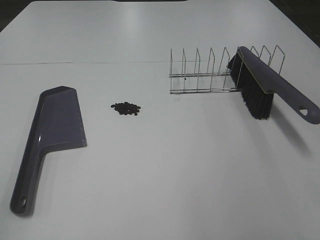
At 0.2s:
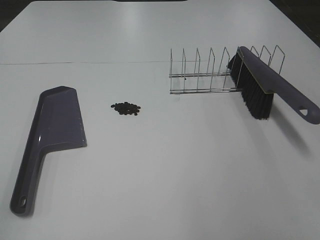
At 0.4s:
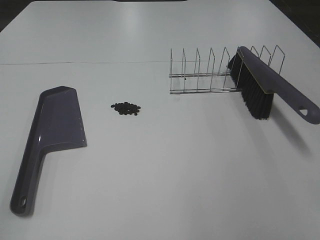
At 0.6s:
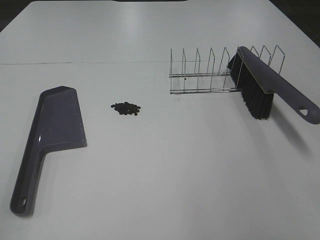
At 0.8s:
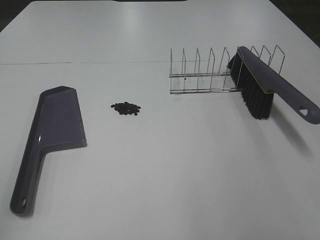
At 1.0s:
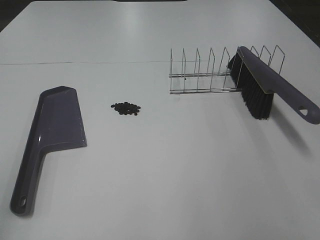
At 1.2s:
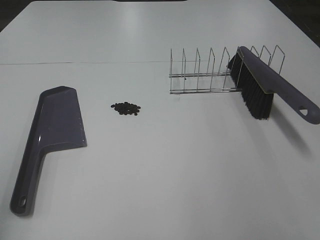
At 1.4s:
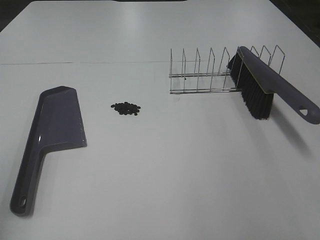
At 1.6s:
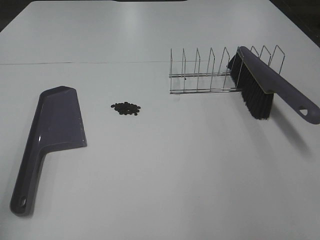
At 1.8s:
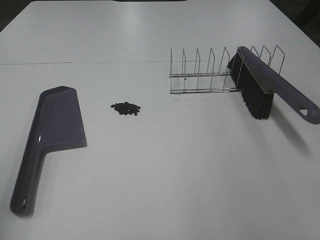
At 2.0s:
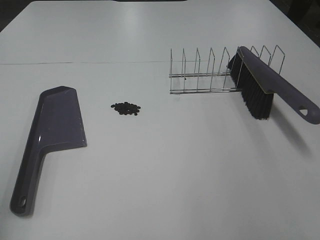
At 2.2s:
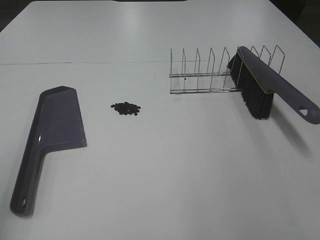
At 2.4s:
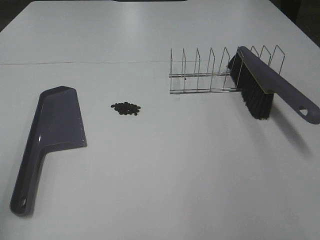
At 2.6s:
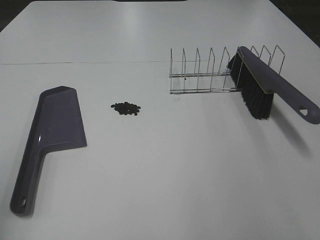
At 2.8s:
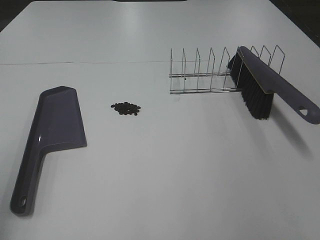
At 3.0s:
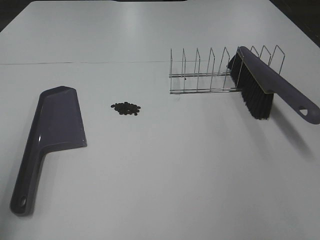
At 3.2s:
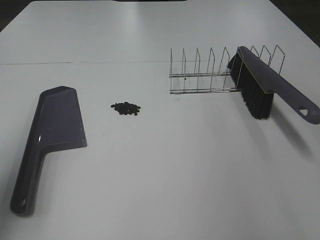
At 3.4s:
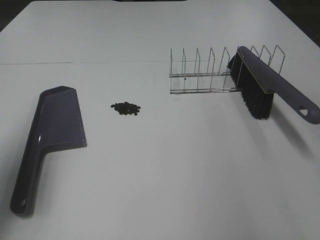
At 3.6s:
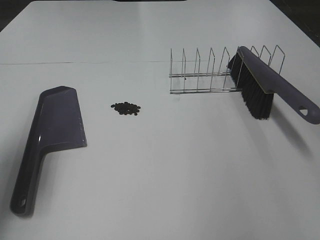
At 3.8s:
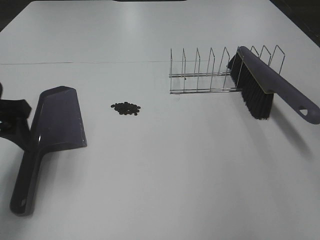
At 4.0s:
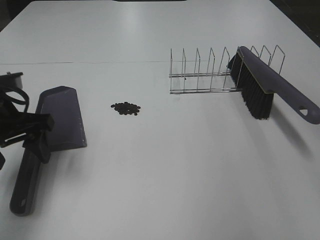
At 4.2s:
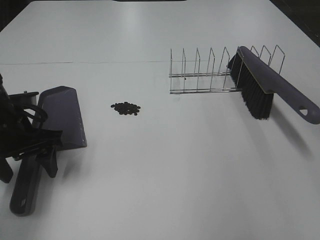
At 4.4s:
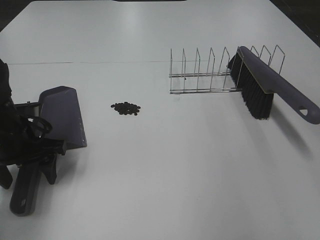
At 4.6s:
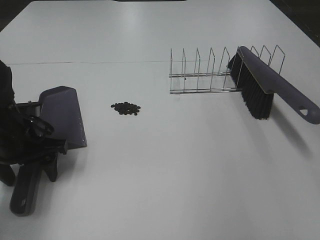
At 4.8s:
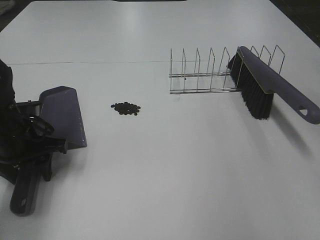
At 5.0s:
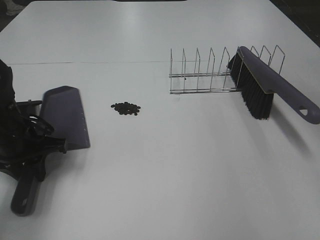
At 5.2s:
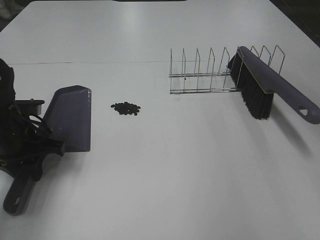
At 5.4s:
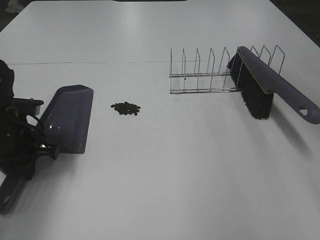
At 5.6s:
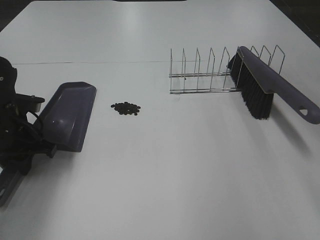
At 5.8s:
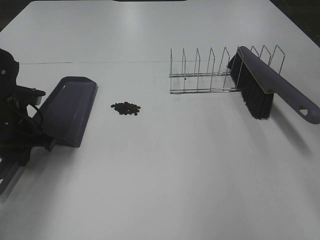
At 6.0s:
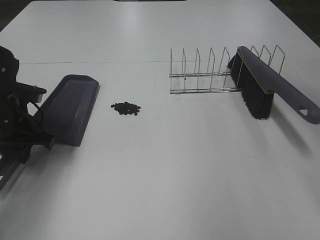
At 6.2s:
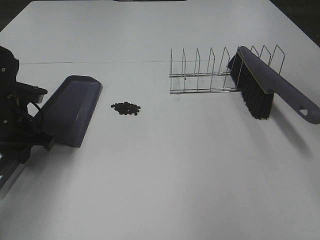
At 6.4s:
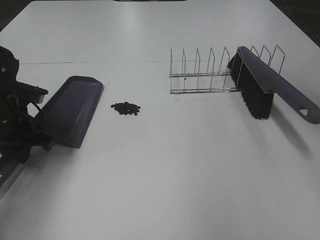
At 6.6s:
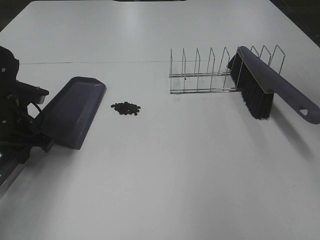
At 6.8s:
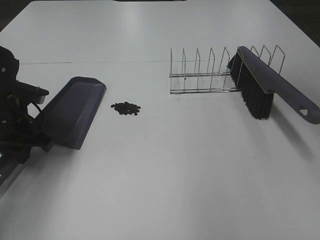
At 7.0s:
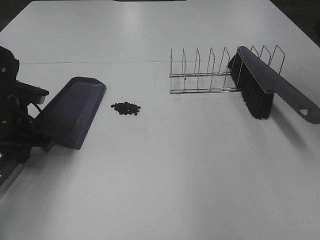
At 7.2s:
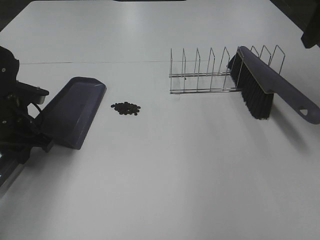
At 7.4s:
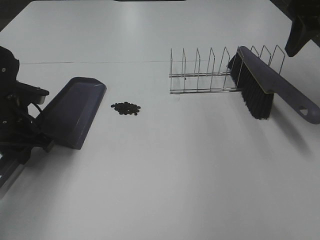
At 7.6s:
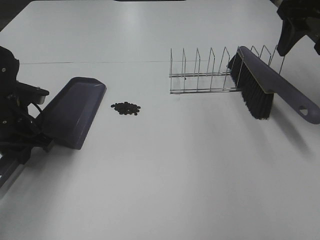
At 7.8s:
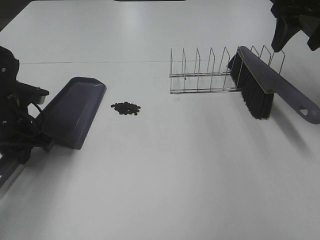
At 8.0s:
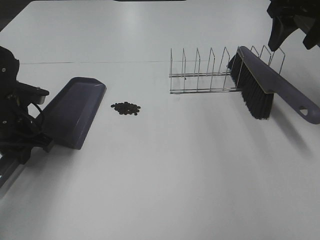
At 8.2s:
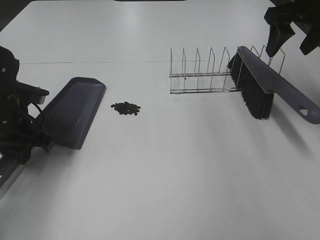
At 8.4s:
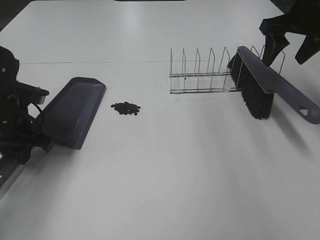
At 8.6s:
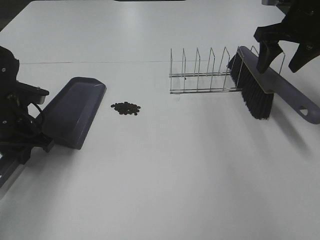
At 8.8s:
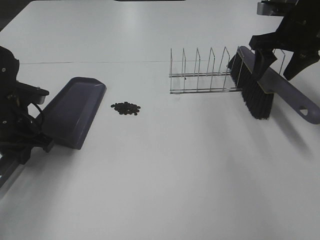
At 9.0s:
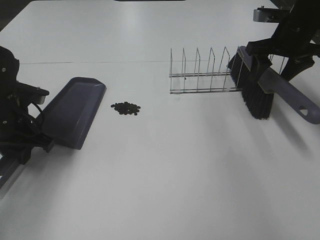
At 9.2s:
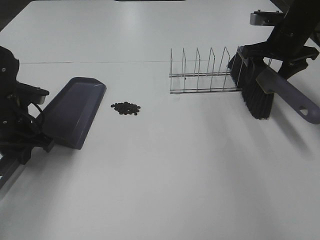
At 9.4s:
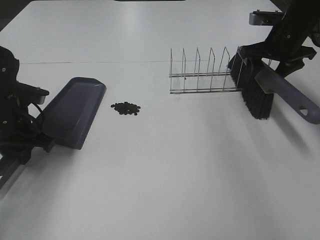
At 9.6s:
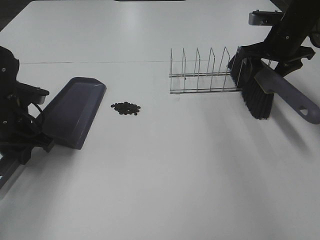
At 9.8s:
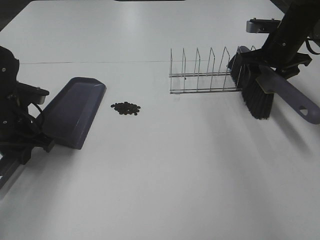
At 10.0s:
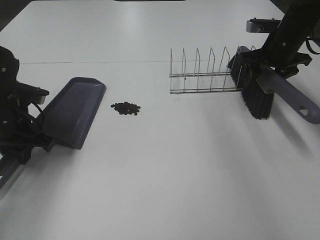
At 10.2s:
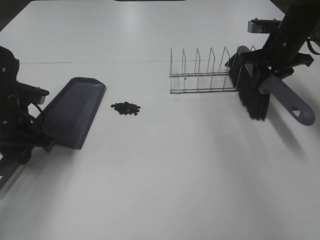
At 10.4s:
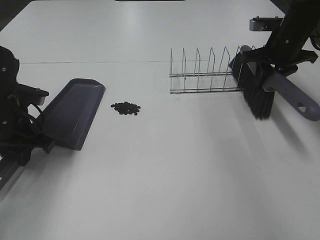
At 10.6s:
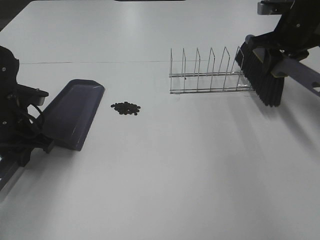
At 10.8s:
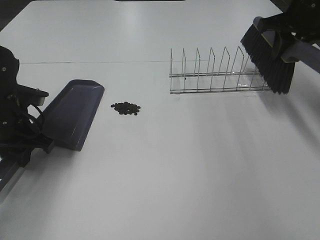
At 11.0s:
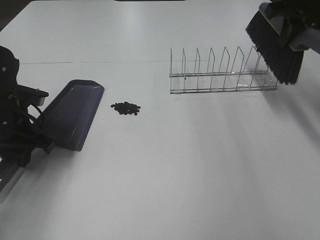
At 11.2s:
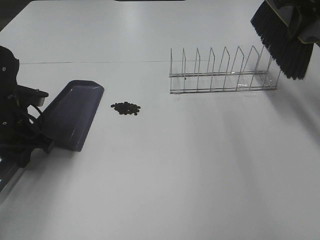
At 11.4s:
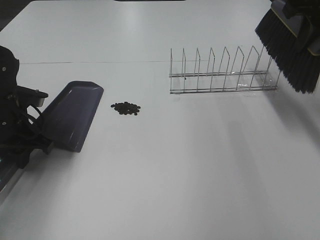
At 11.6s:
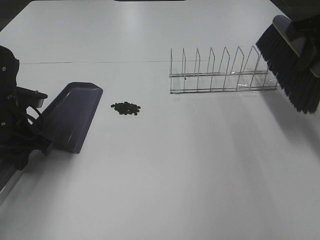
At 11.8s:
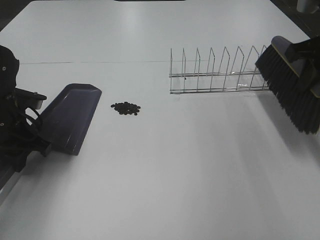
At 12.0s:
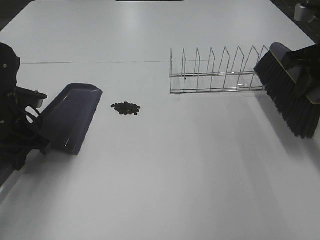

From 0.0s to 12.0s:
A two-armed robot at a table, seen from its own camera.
Task of the whole recording: Sweep Coffee Bean.
Step, from 0.0s to 5.0s: Left hand: grab the dustpan.
Step, from 5.4s to 10.2s: Right hand:grab the broom.
From 3.0s to 4.4s: The left gripper shifts approximately 25 cm downward, forward and to the right.
From 4.4s to 6.0s: The left gripper closes up.
From 6.0s to 7.6s: The right gripper shifts about 20 cm forward.
From 7.6s to 9.0s: The right gripper goes roughly 10 cm downward and forward.
From 9.0s to 10.4s: The right gripper closes up.
From 10.4s to 12.0s: The right gripper moves backward and upward, about 15 cm.

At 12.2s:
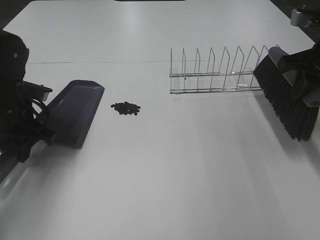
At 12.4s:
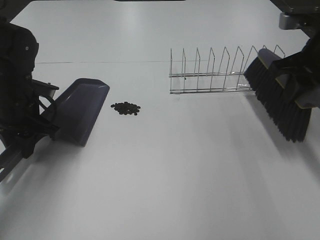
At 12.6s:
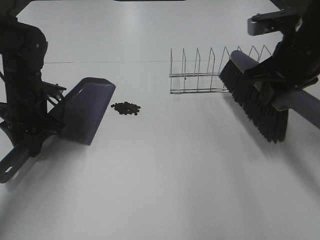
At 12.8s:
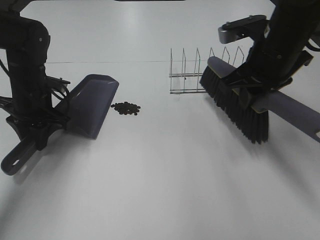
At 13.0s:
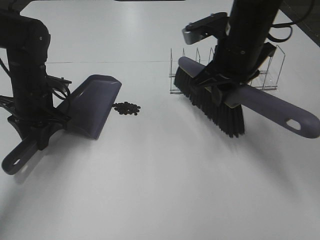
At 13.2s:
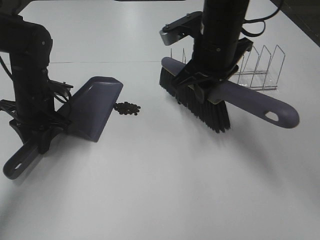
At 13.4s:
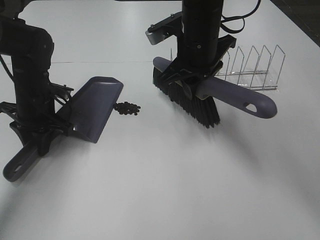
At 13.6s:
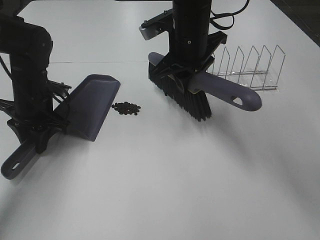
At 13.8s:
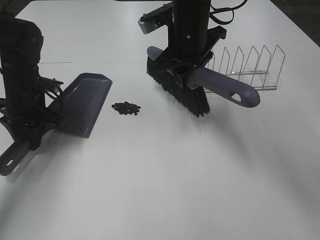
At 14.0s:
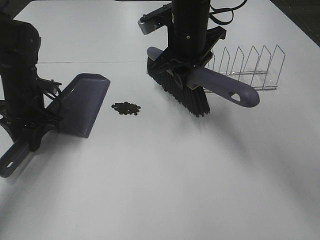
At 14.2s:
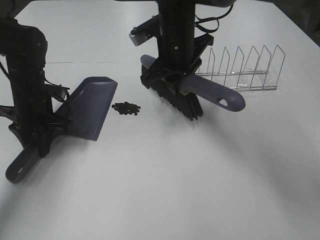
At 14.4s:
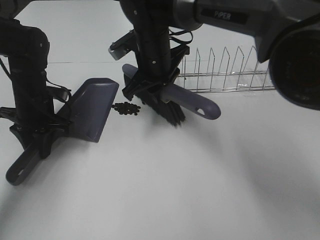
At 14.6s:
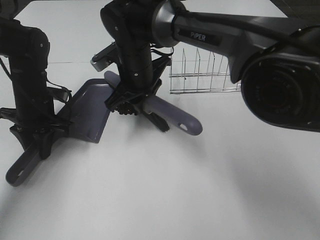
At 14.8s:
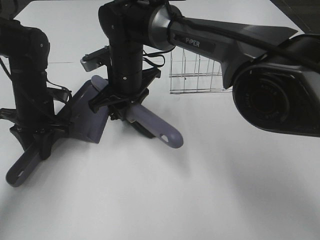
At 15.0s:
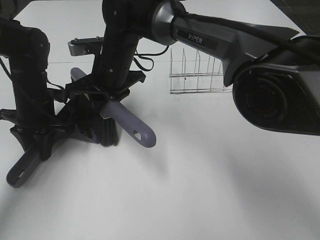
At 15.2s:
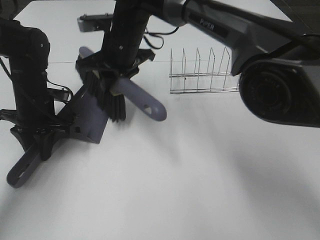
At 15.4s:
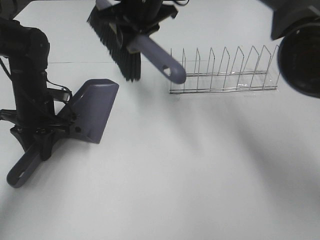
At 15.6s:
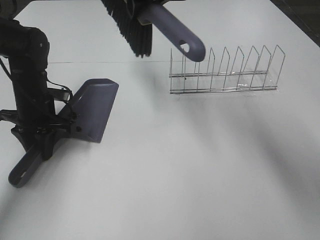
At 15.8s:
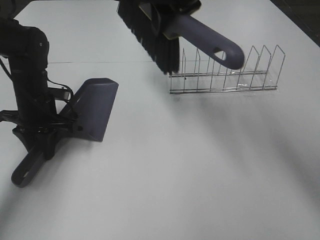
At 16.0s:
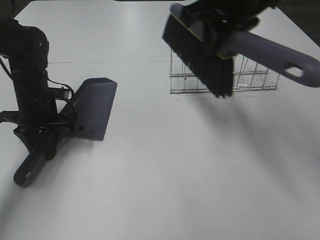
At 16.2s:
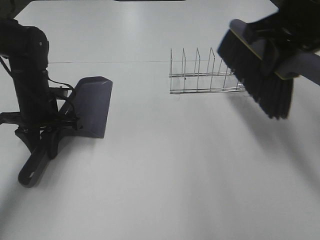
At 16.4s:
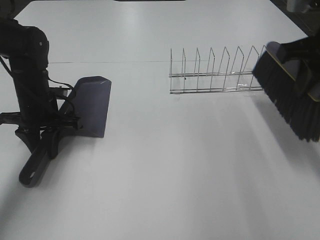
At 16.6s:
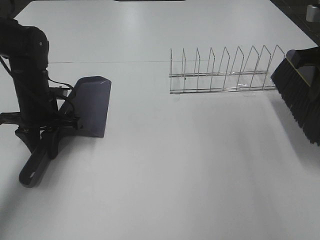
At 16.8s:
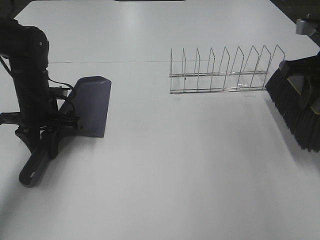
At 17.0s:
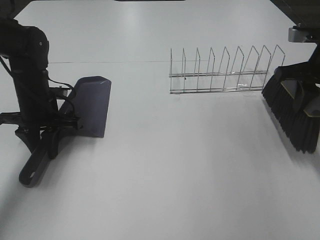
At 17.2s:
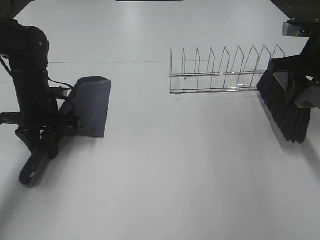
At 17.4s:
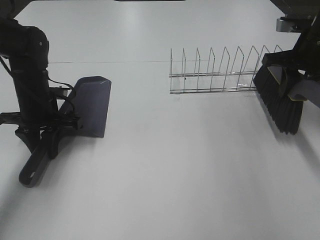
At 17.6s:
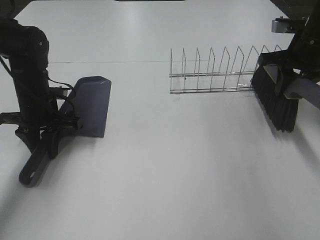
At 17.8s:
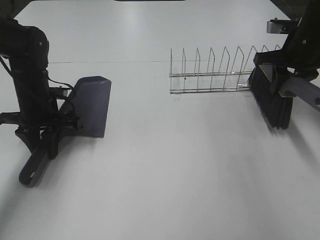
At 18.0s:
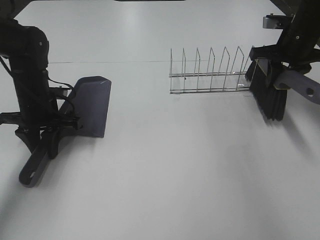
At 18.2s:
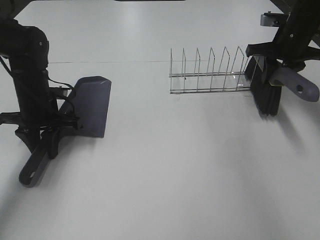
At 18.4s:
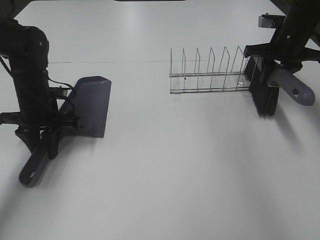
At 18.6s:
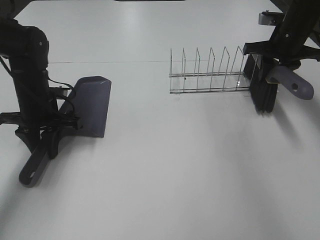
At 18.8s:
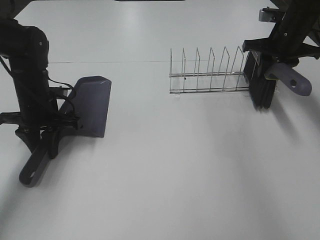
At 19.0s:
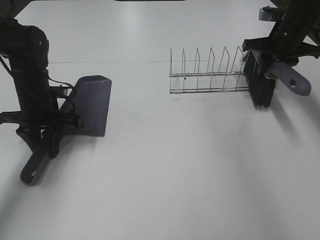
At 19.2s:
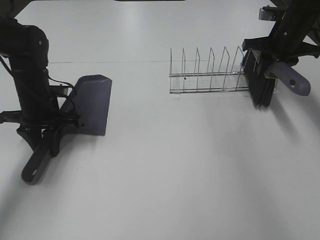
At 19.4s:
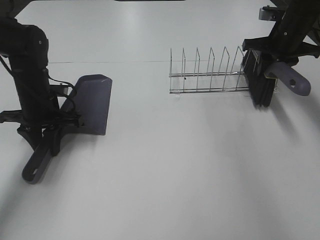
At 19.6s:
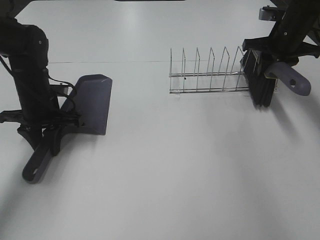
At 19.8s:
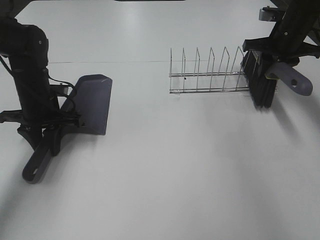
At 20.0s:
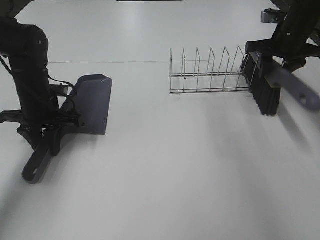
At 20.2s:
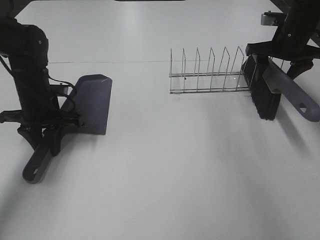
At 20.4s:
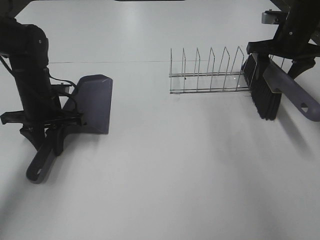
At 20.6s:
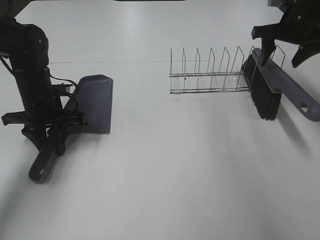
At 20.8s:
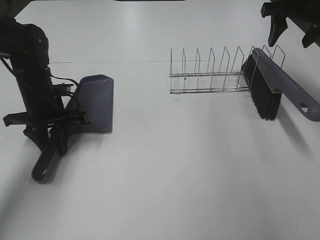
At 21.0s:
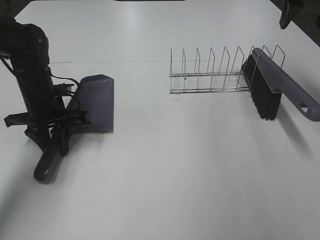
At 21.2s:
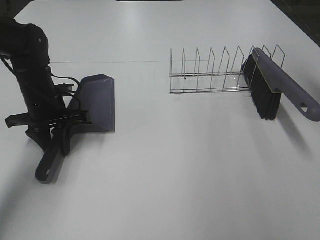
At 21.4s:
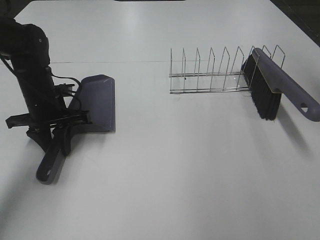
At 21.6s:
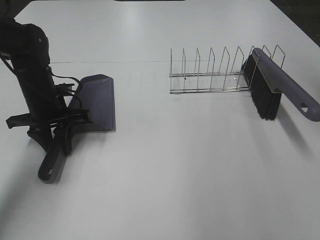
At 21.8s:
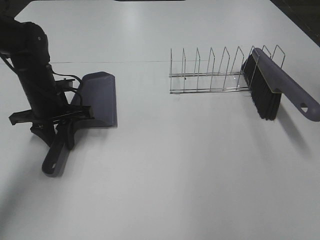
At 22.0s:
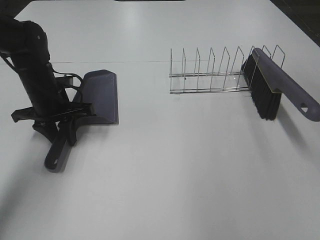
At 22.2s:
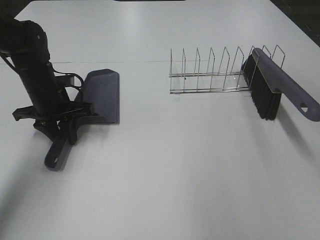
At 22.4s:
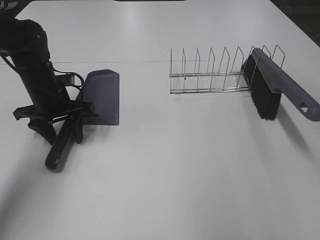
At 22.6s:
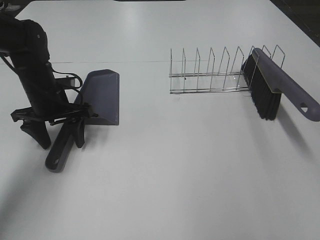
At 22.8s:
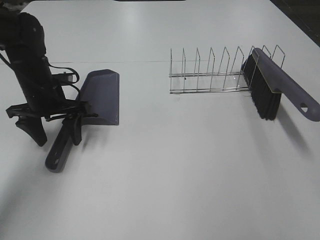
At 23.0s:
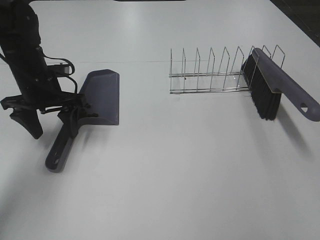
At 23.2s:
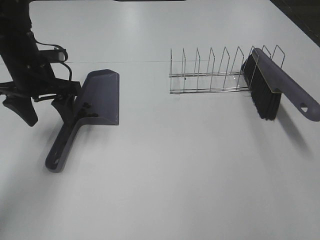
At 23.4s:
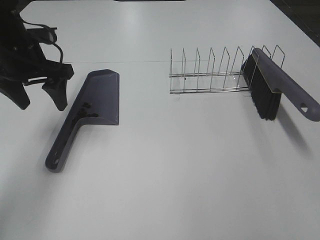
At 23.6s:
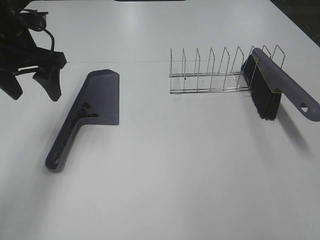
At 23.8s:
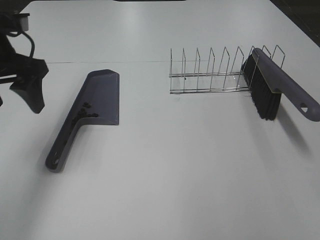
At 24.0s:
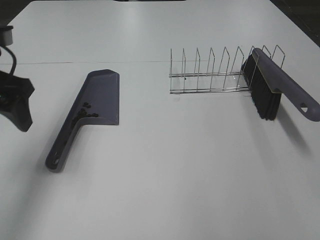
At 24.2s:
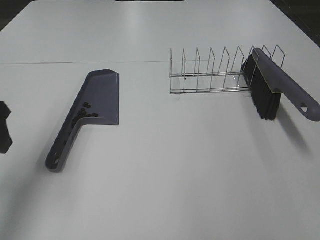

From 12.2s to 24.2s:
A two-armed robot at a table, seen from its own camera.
Task of the whole recording: Sweep Coffee Bean.
Step, from 12.2s to 15.2s: Right hand:sweep the coffee beans into the dustpan.
Step, from 15.4s to 20.0s: Right hand:place the broom on the rack.
From 12.2s to 13.8s: The right gripper is displaced to the left by roughly 20 cm.
From 13.8s to 15.2s: The right gripper heads to the left, covering some 10 cm.
From 15.2s to 16.6s: The right gripper heads to the right, covering roughly 35 cm.
From 16.6s to 18.2s: The right gripper goes some 15 cm forward and downward.
From 18.2s to 19.8s: The grippers make only small movements.
From 19.8s to 21.2s: The right gripper moves upward and backward, approximately 20 cm, and opens.
From 21.2s to 22.6s: The right gripper shifts some 30 cm backward; the left gripper opens.
From 22.6s to 24.2s: The left gripper travels backward and upward by approximately 20 cm.
